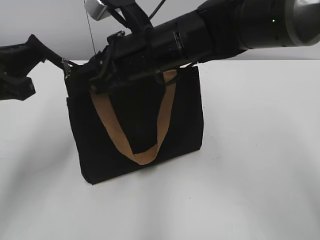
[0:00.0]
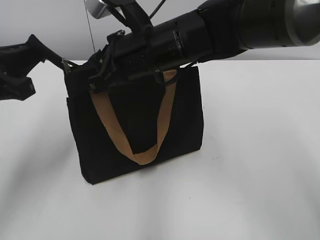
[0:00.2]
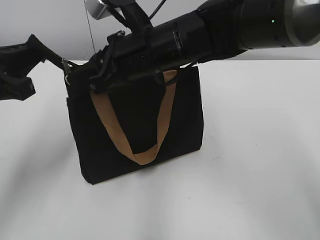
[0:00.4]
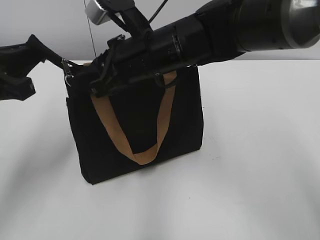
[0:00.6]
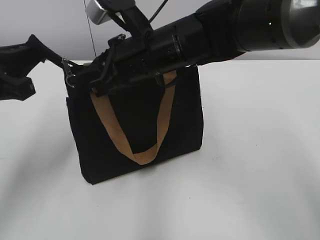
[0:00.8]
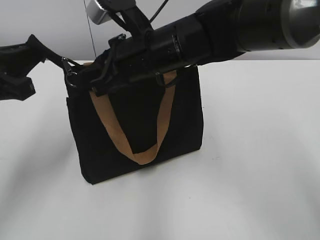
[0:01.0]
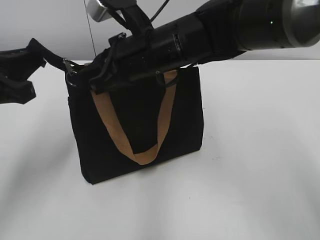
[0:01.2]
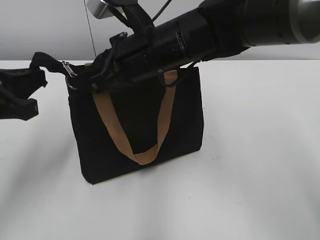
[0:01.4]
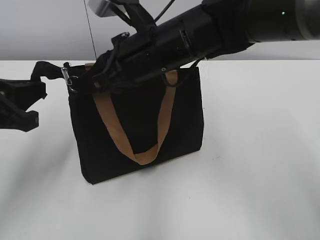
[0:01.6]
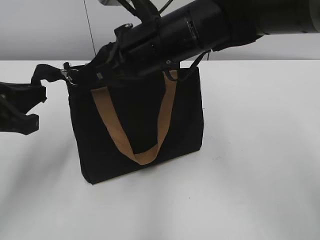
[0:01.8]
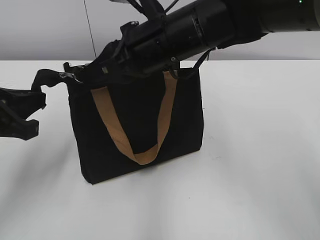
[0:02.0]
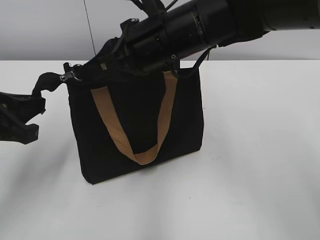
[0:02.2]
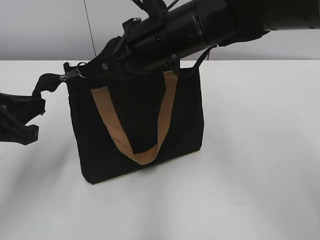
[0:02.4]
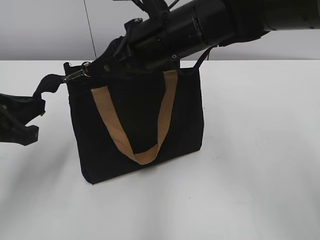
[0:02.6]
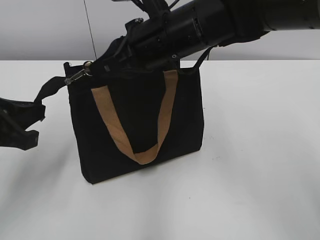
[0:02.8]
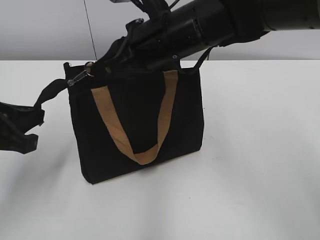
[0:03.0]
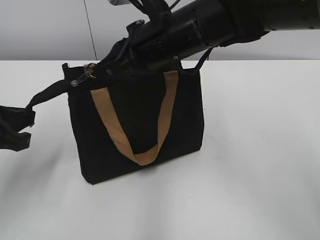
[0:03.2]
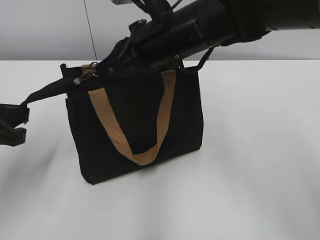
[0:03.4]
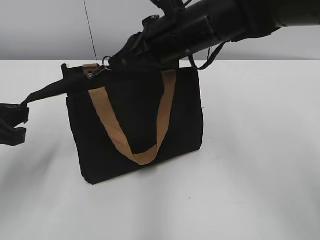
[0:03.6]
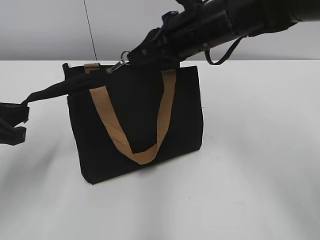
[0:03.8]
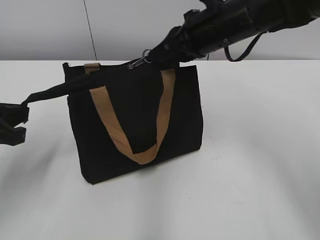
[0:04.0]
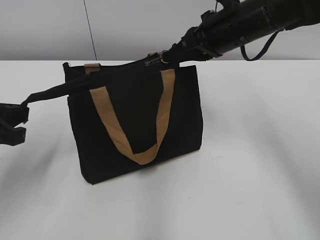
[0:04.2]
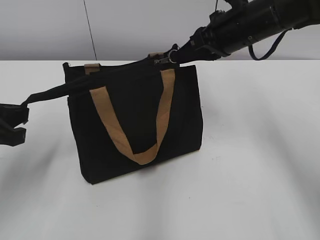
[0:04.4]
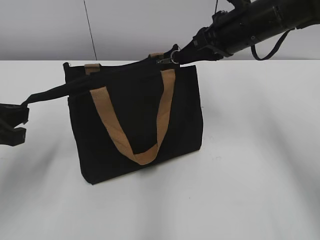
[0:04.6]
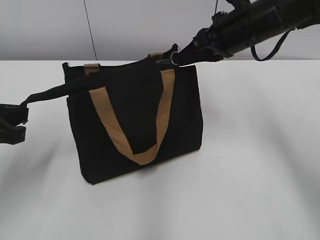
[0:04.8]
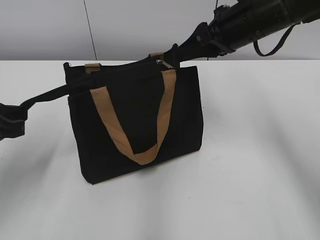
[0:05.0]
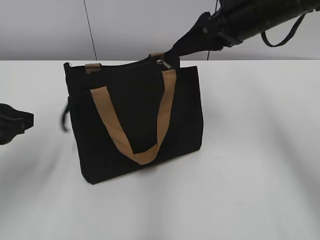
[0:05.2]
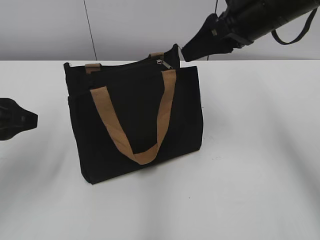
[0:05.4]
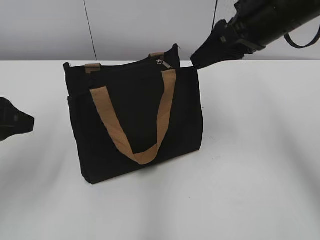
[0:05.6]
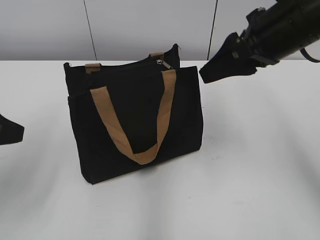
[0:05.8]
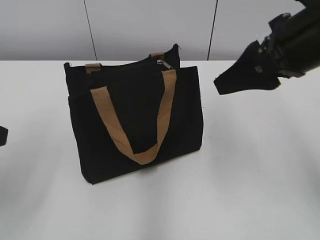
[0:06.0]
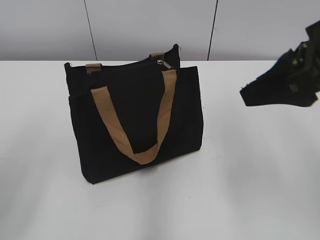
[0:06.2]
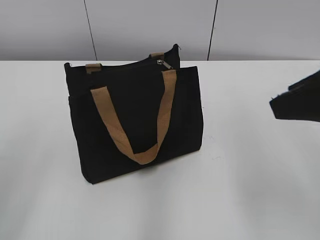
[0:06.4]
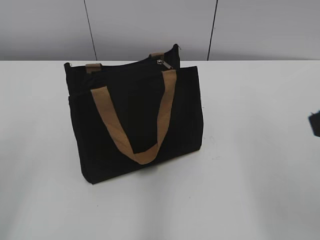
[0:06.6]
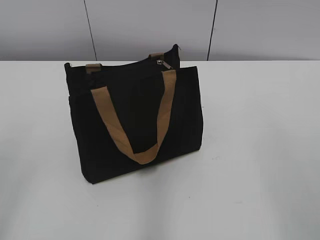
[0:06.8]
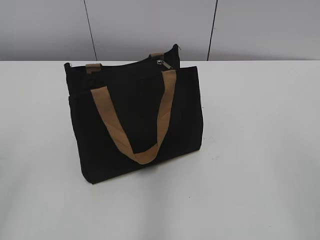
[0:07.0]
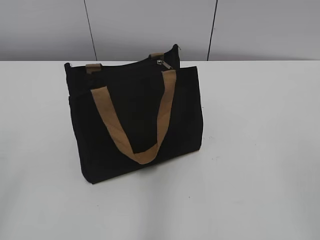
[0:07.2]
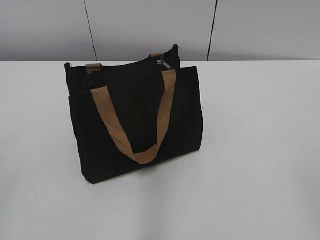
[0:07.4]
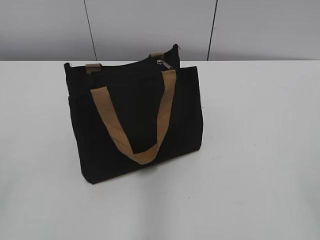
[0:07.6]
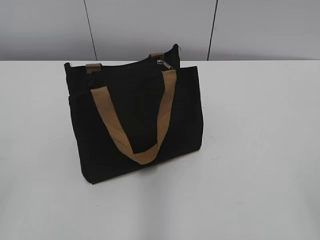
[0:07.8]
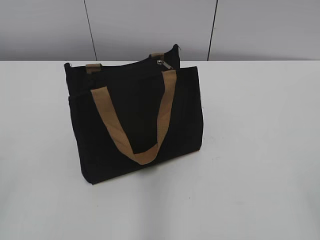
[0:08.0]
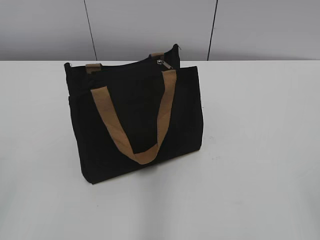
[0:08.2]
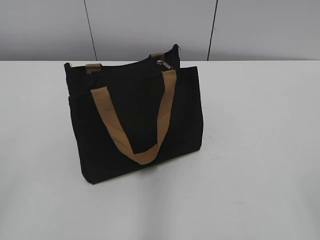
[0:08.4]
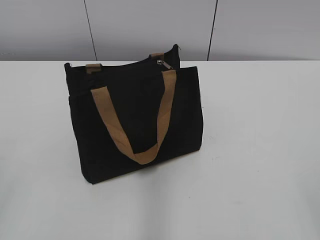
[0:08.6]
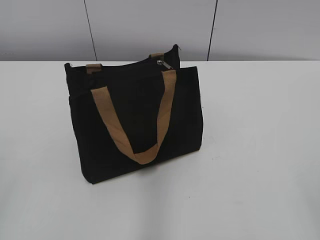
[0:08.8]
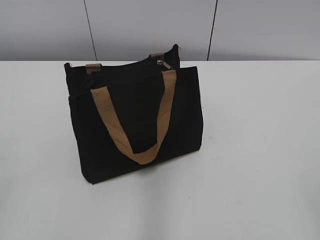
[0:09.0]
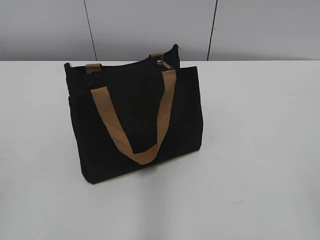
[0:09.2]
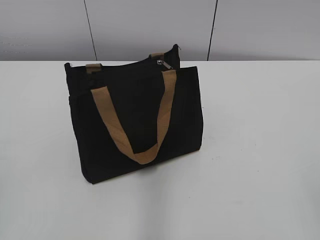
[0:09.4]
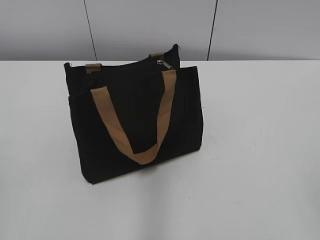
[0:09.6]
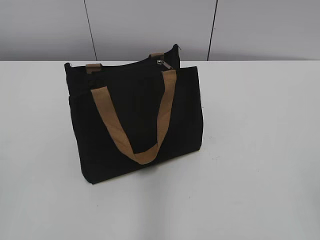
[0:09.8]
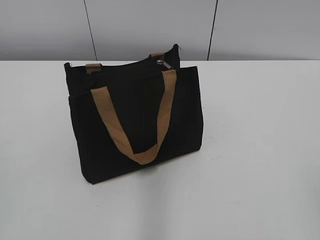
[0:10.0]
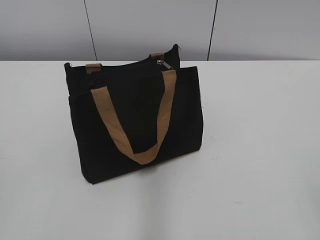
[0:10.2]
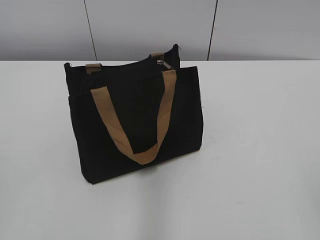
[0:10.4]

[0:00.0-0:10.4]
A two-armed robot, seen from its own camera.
Step, 0:00.0 to 0:04.8: Zip up the bag with your right hand.
Step, 0:05.2 to 0:05.4: Grab the zipper with your left hand.
0:00.0 to 0:01.4: The right gripper closes.
0:01.4 to 0:03.0: The grippers move only a little.
0:03.0 to 0:04.4: The right gripper goes about 15 cm to the right and forward.
0:04.4 to 0:06.0: The right gripper shifts approximately 10 cm backward, and opens; the left gripper travels upward by roughly 5 cm, and opens its fingers.
0:06.0 to 0:07.4: The right gripper is displaced backward by roughly 30 cm. Meanwhile the left gripper heads backward, covering about 15 cm.

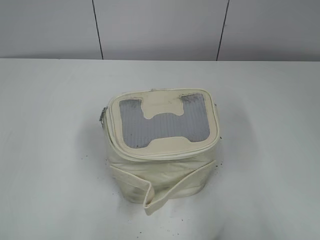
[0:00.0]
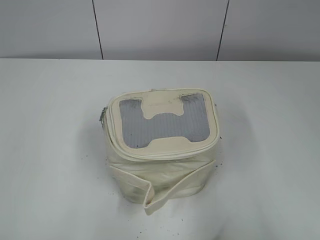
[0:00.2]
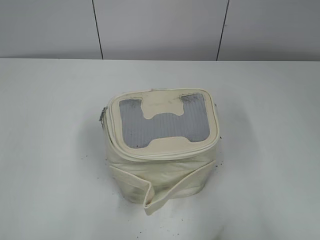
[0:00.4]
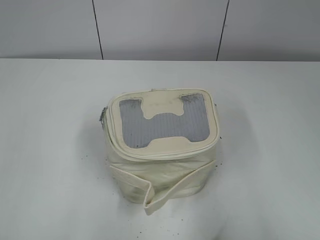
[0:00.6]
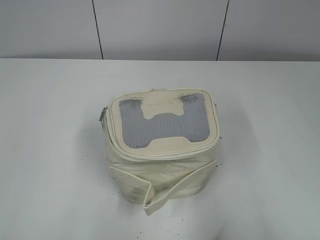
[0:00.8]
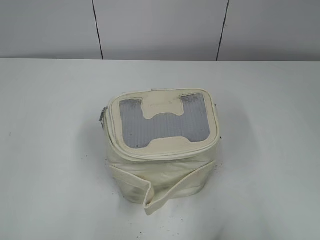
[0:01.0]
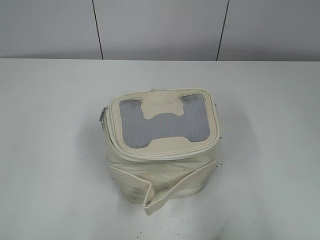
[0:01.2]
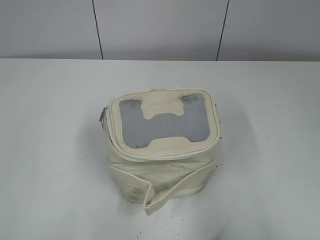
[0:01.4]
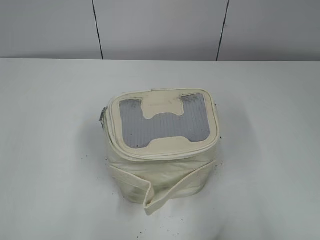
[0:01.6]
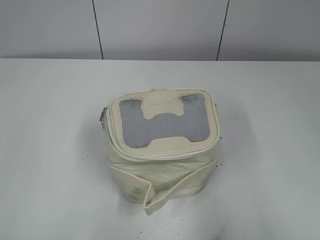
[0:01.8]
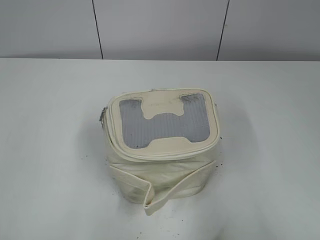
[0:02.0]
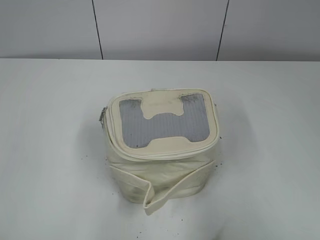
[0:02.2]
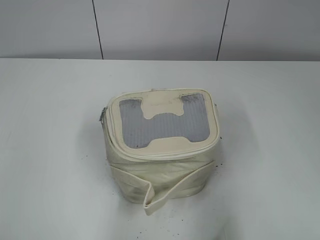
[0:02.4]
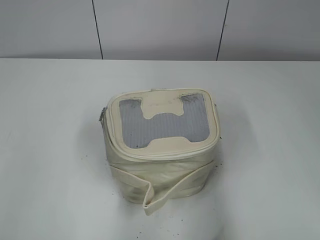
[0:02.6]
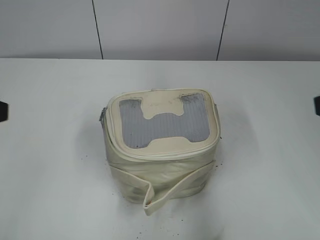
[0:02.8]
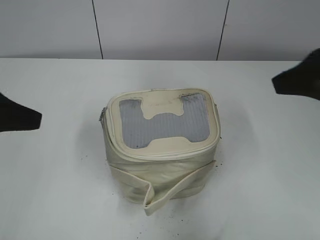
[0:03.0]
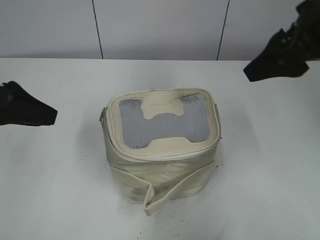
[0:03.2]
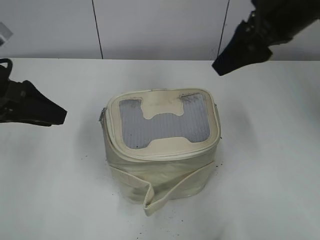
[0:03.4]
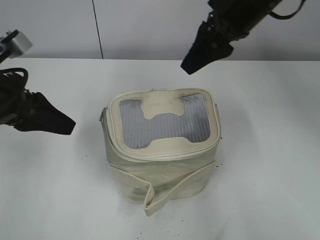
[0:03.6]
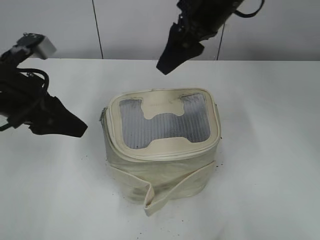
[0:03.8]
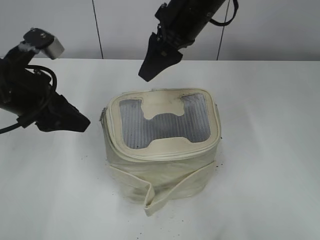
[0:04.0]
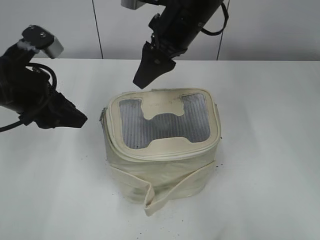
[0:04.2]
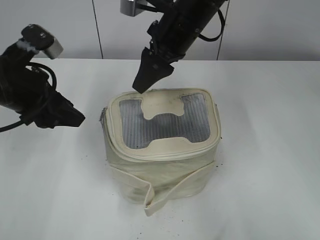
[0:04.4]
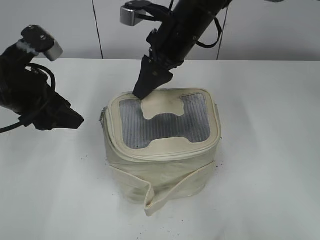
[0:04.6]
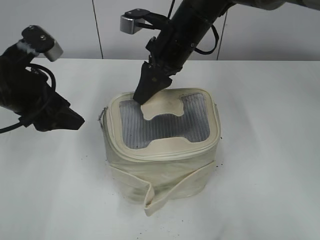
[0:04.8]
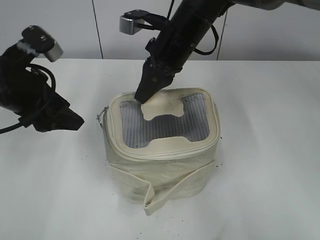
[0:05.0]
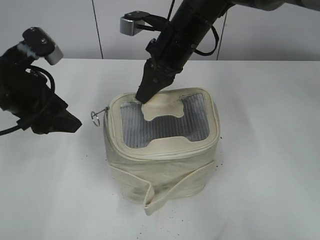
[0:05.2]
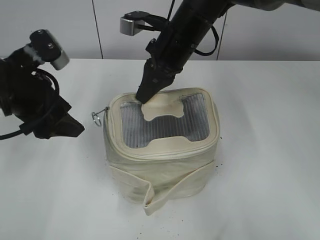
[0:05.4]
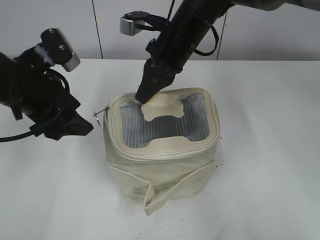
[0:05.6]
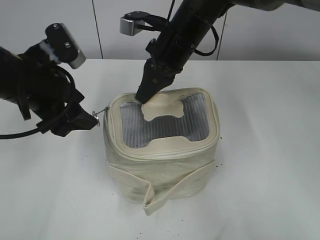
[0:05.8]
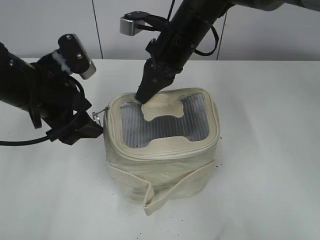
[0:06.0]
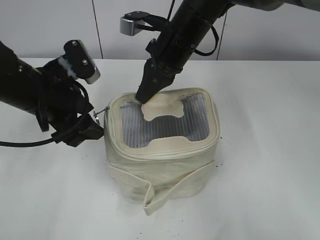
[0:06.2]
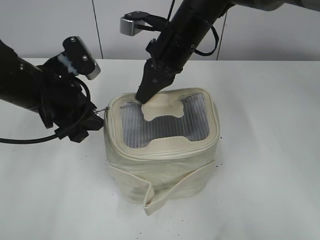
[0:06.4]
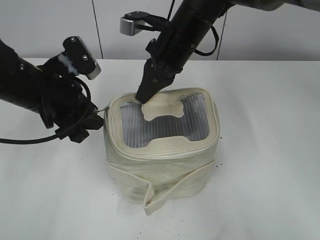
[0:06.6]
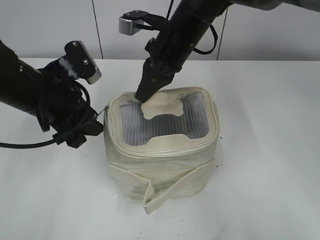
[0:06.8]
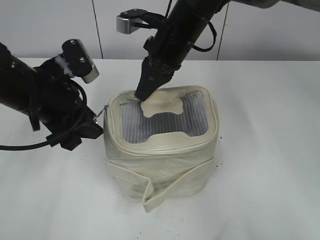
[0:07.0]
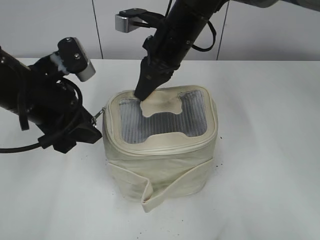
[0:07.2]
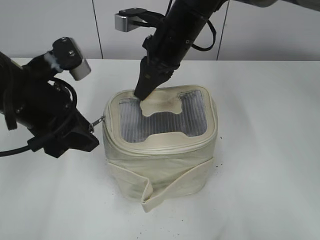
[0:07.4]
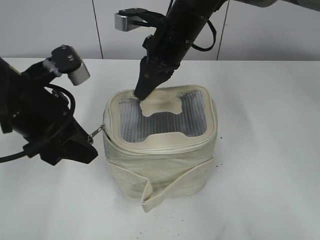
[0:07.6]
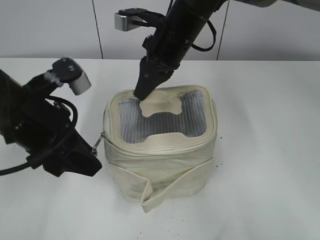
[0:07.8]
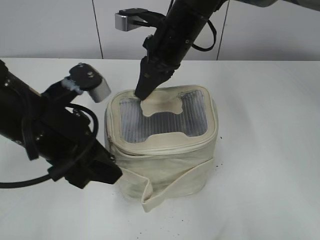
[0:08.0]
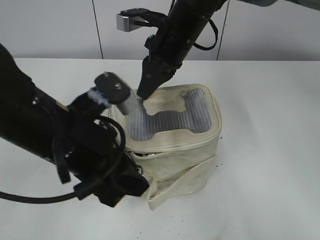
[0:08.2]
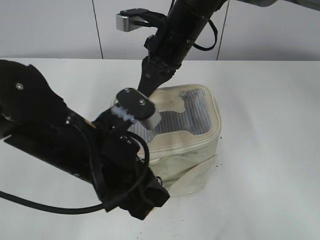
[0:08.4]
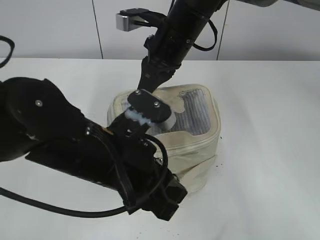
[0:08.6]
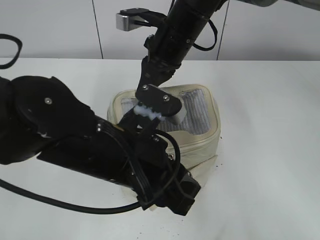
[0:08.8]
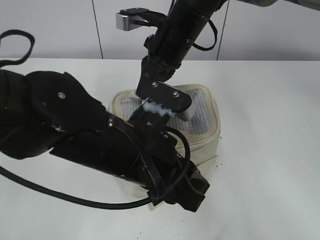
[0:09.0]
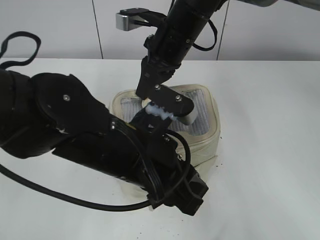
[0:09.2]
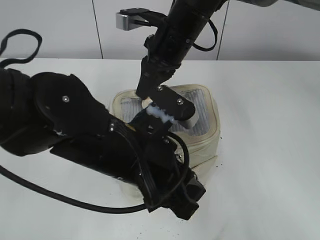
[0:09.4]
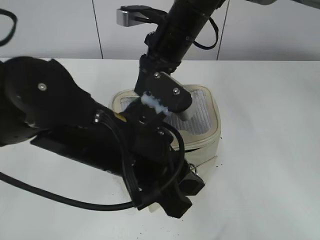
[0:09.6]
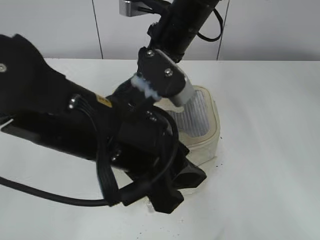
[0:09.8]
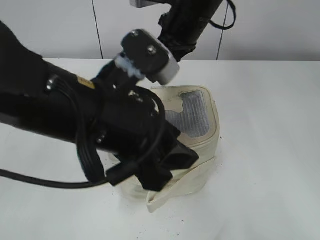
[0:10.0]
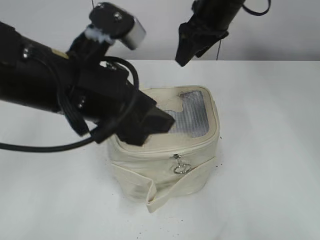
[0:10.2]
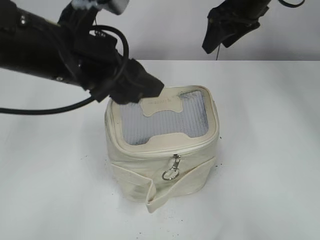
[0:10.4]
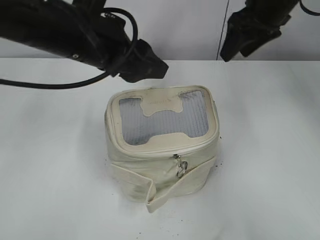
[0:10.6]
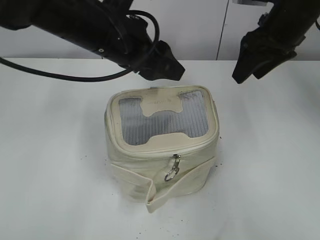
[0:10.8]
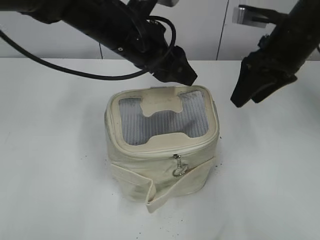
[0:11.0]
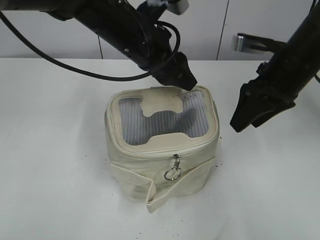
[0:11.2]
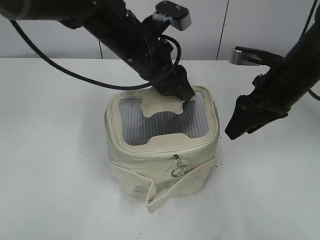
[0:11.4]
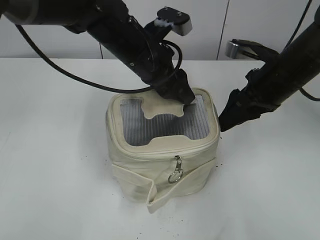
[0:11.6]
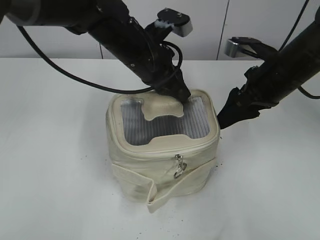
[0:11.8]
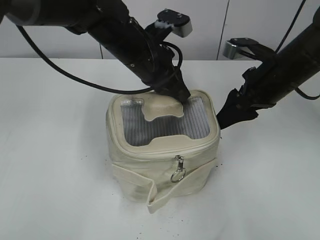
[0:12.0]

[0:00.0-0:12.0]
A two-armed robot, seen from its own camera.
Step, 0:00.0 to 0:09.4: Zip up the bag with your left hand.
Step, 0:09.6 to 0:09.8: Hold the bag with your right hand.
0:01.6 to 0:03.0: Both grippers travel together forward, approximately 20 cm.
0:03.0 to 0:04.4: The right gripper is displaced to the left and forward by about 25 cm; the left gripper heads forward and to the right, covering some 10 cm.
0:04.4 to 0:06.0: The right gripper closes.
0:06.0 to 0:07.6: The left gripper closes its fingers.
0:07.6 to 0:09.0: The left gripper moves to the right and backward, approximately 15 cm.
0:09.0 to 0:10.4: The left gripper is displaced upward, to the left and forward by approximately 10 cm. Meanwhile the right gripper moves to the right and upward, about 15 cm, and opens.
0:10.4 to 0:12.0: The right gripper goes some 15 cm backward and downward. The left gripper goes approximately 15 cm forward, to the right and downward, and closes up.
